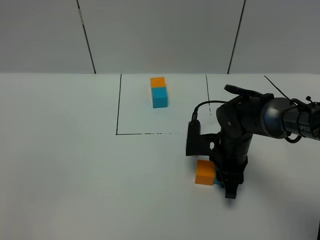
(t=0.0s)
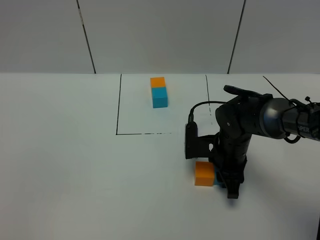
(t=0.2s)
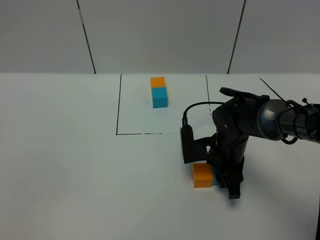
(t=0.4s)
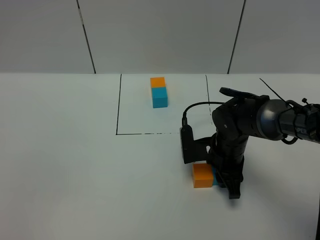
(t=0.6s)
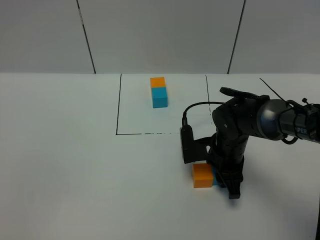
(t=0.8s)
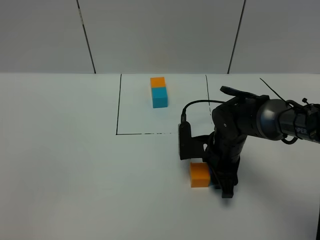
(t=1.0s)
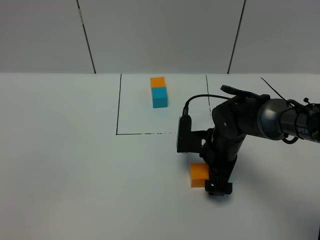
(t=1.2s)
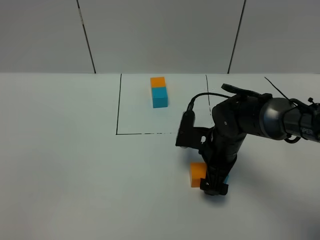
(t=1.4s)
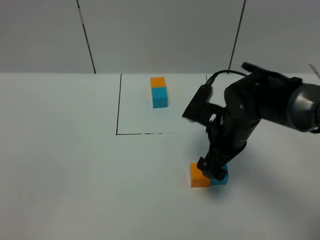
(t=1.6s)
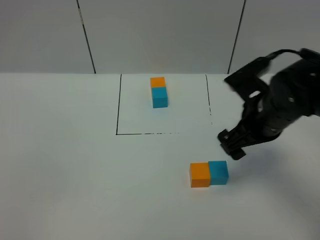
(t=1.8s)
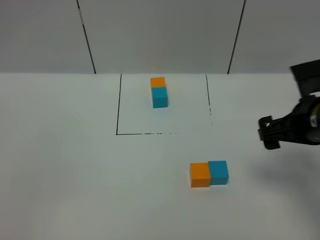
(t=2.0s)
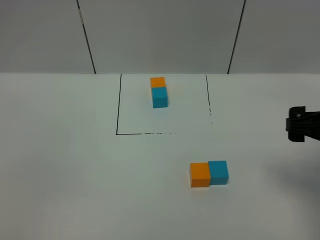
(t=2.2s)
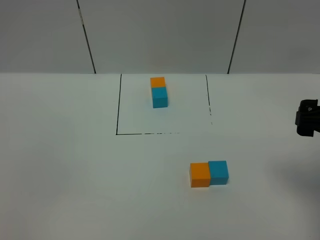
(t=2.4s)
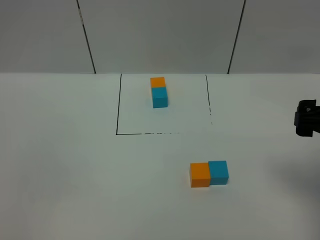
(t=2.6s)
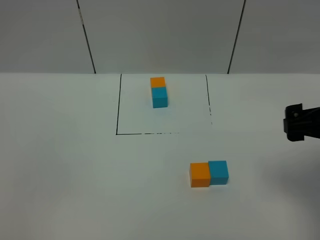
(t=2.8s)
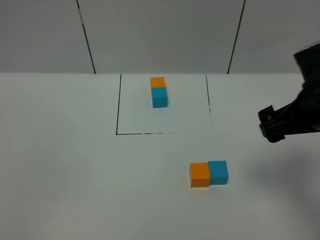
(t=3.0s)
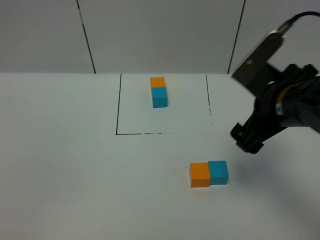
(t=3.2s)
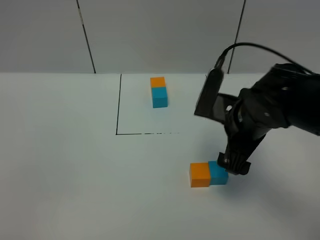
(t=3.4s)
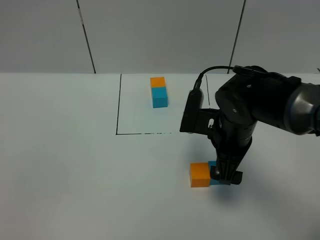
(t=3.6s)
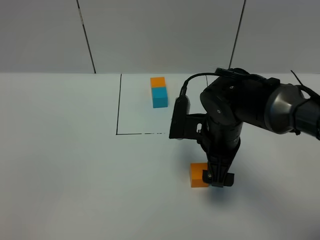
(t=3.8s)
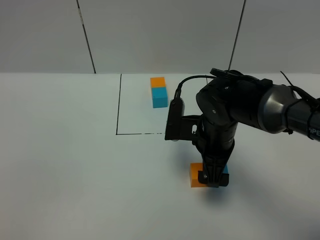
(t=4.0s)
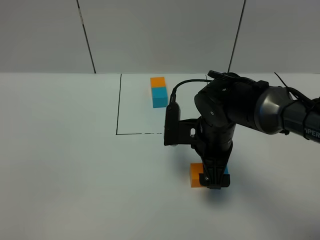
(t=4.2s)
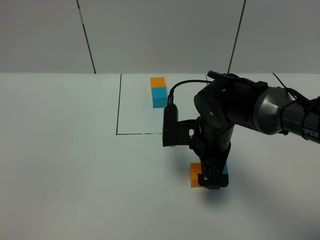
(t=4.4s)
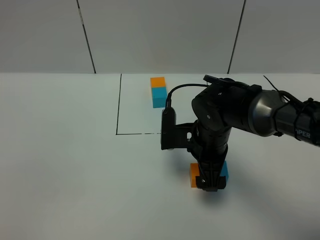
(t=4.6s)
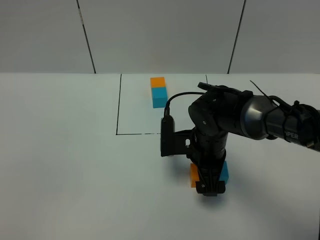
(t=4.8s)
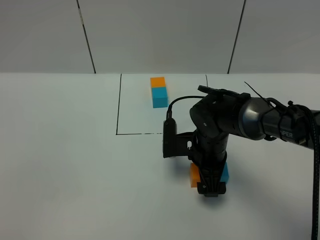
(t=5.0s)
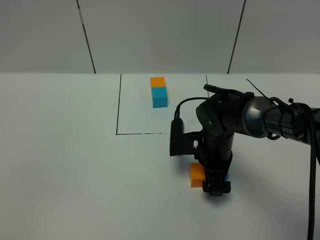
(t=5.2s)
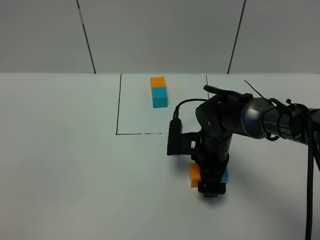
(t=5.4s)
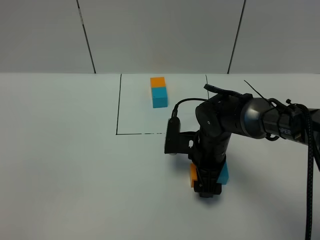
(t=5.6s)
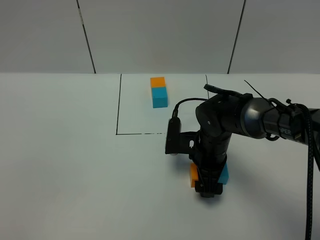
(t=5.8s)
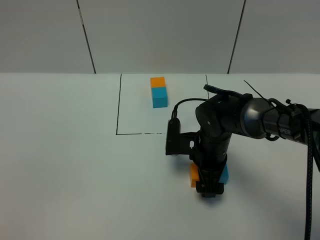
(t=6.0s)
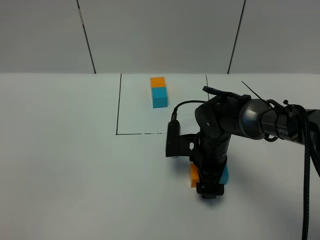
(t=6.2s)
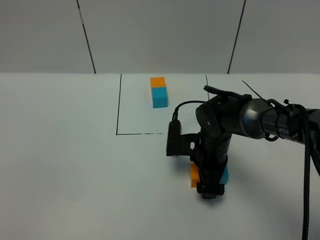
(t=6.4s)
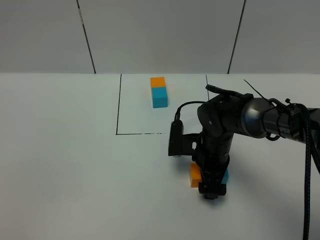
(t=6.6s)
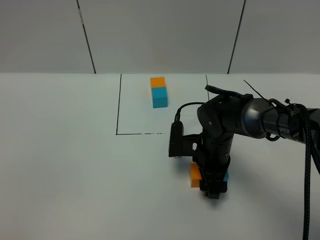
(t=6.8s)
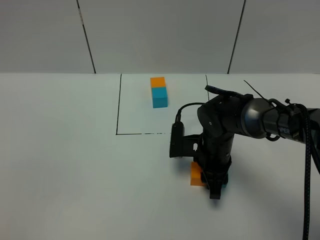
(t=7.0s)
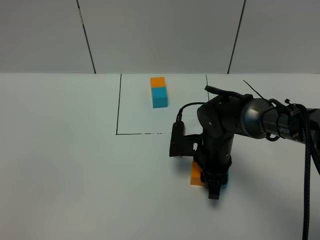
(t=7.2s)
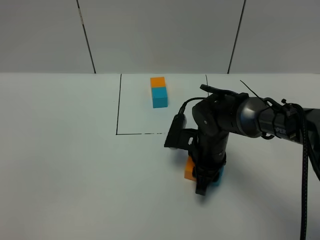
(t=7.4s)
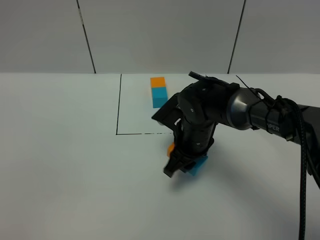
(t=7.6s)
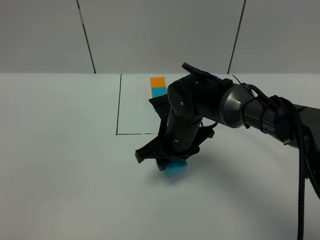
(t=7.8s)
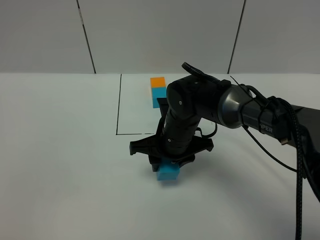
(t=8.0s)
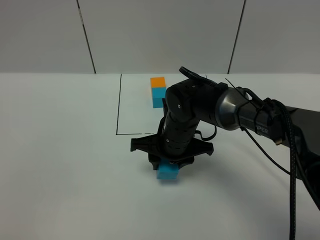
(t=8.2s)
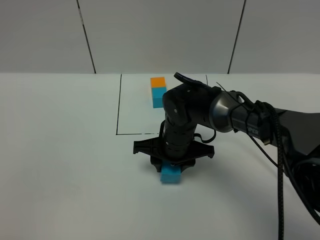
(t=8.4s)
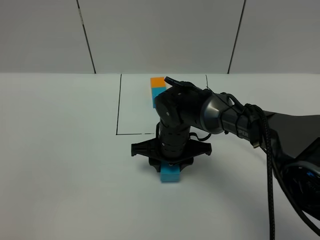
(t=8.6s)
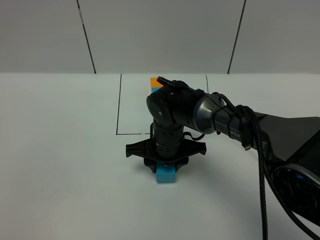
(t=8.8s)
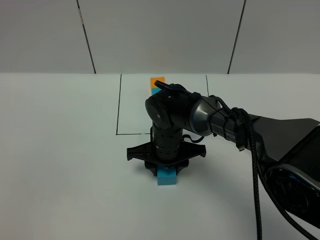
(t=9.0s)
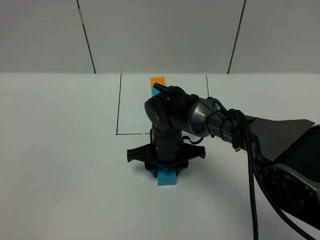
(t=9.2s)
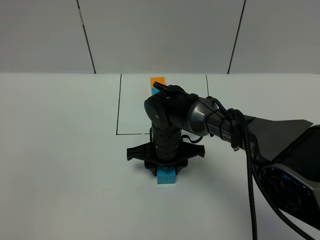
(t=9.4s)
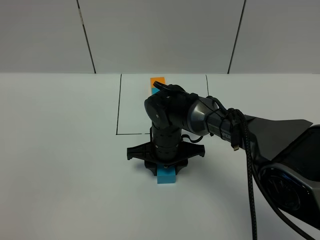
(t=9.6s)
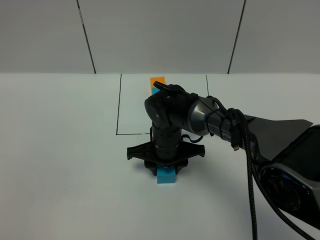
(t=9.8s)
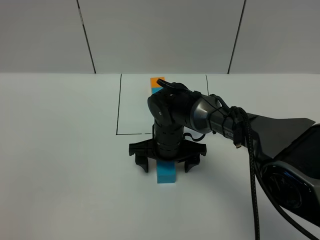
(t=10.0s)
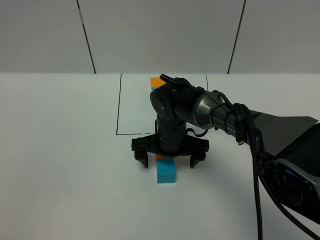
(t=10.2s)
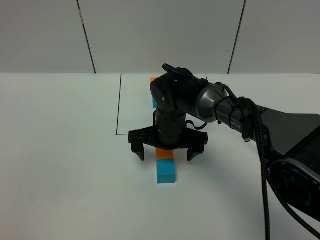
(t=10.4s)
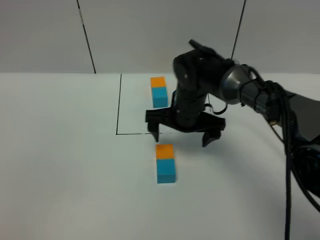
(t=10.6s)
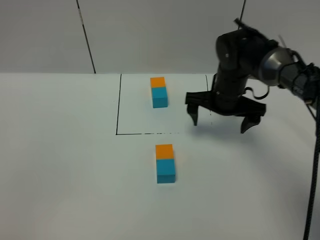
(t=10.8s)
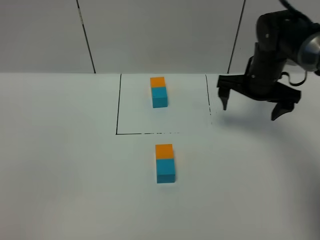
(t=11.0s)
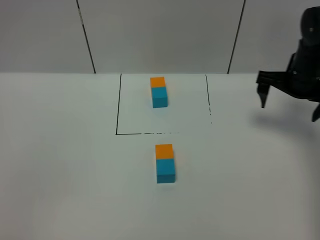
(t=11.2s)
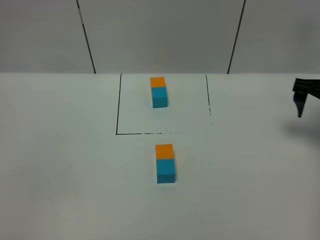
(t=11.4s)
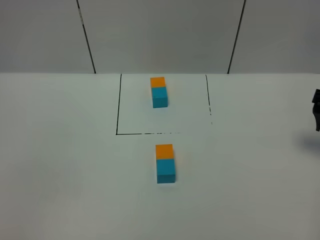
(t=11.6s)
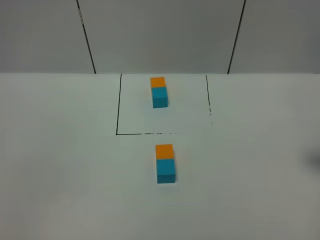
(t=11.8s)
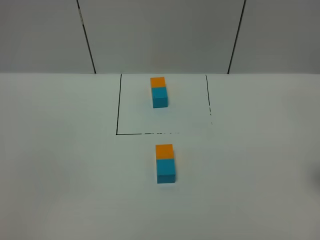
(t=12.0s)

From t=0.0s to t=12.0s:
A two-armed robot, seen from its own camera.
Task of the whole recording: According to the building block template in front, assemble the scattered blocks together.
Step, from t=2.0s to t=10.4s: Adjust the pose of the building blocks.
From t=0.0s to t=1.6s: The right gripper moves upward, some 10 cm, and opens.
From t=1.6s to t=3.0s: The right gripper goes some 15 cm upward, to the right and backward.
From t=3.0s to t=4.4s: The right gripper heads to the left, downward and forward, covering approximately 20 cm.
From t=4.4s to t=6.0s: The right gripper heads downward, covering roughly 5 cm.
From t=6.0s to t=7.6s: The right gripper shifts by roughly 5 cm, and closes.
From t=7.6s to t=9.0s: The right gripper moves about 5 cm.
From t=9.0s to t=10.4s: The right gripper opens up.
From t=10.4s to t=12.0s: The right gripper shifts about 35 cm to the right and backward.

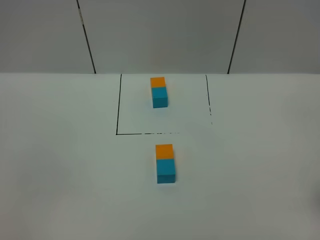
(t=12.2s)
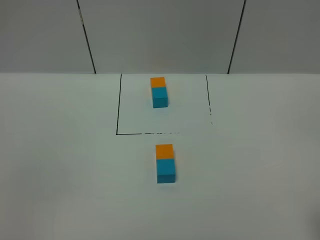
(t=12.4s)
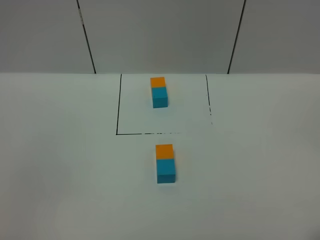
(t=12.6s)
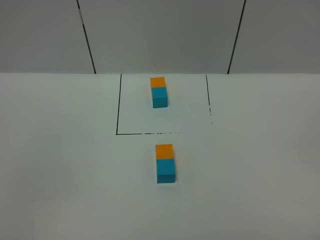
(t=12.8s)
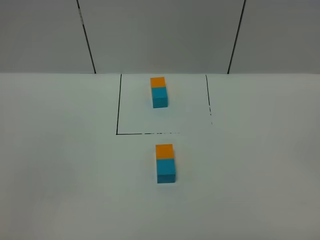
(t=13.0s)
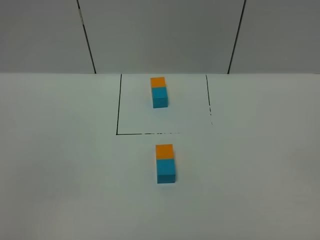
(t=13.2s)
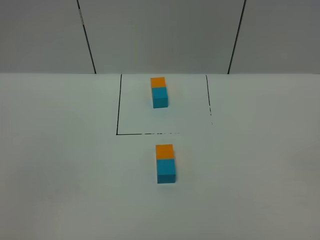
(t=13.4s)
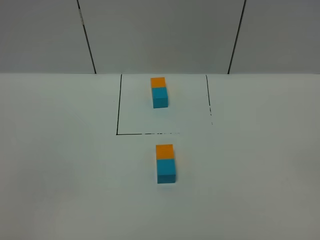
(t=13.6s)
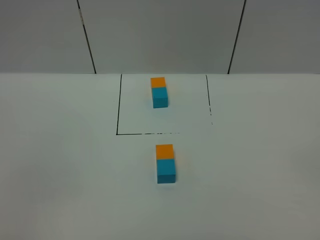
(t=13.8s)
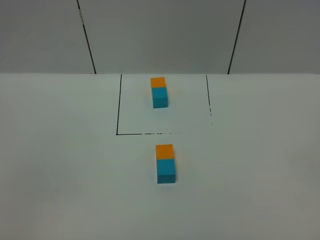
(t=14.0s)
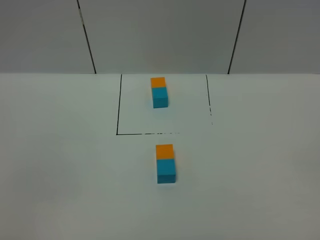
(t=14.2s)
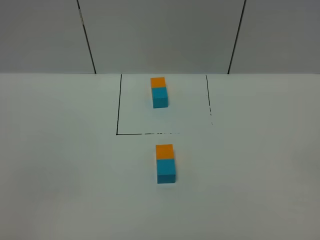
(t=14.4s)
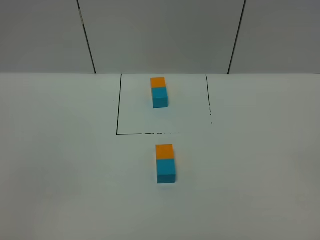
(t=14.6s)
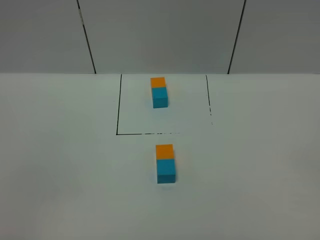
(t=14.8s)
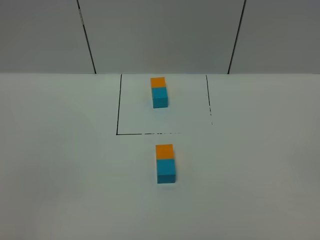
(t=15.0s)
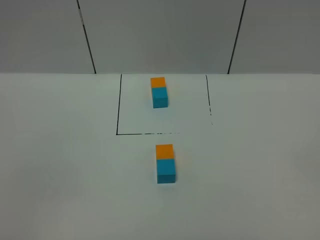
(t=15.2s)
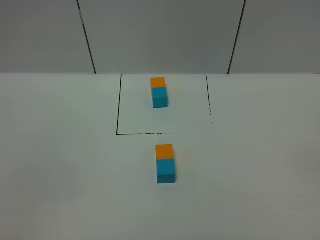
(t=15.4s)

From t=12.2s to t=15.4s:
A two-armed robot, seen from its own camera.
Task of the whole recording: According to the building block template in front, assemble the scattered blocks together.
From t=13.8s to t=15.4s: Neither gripper changes place.
